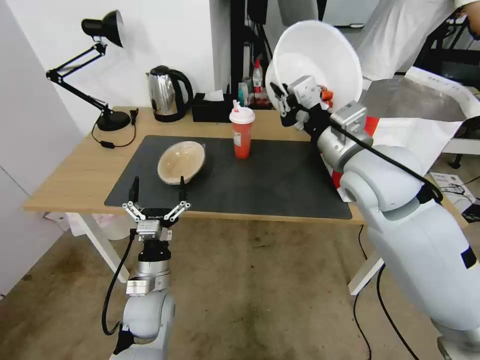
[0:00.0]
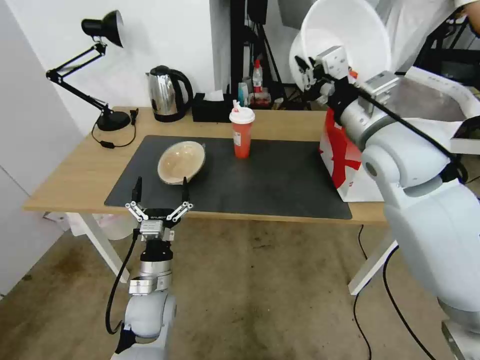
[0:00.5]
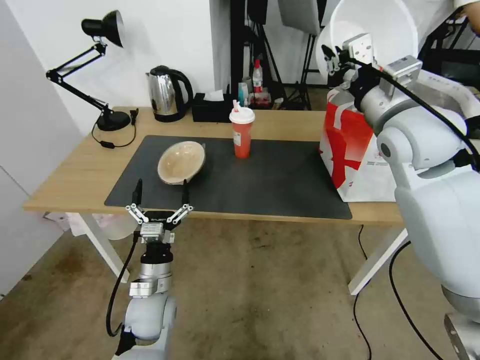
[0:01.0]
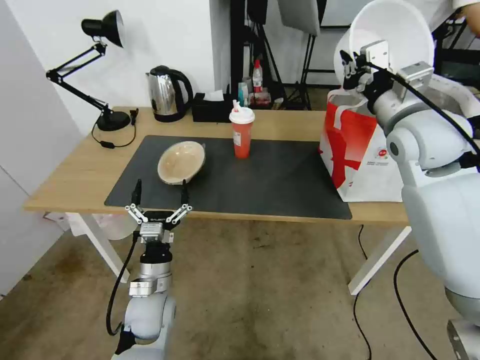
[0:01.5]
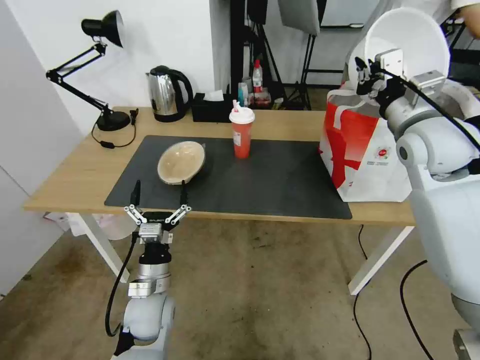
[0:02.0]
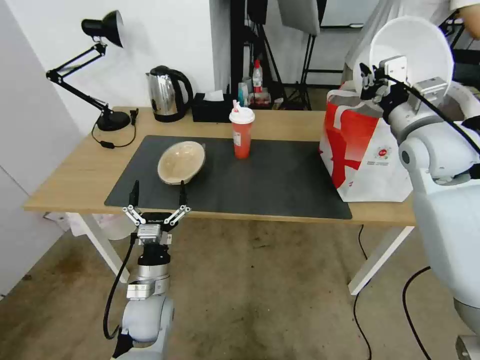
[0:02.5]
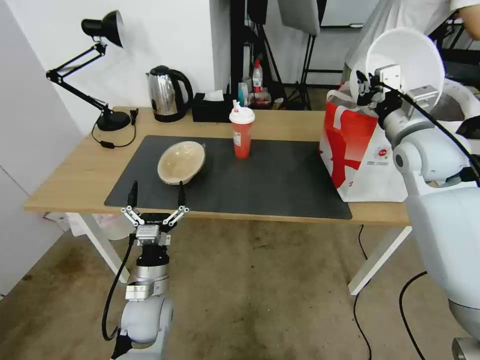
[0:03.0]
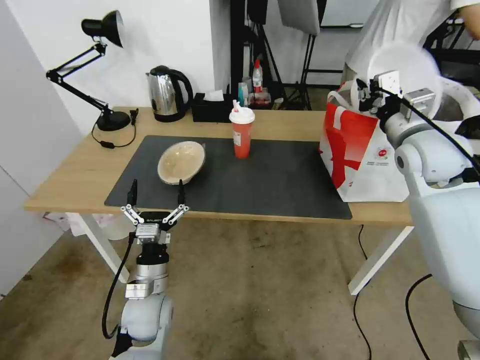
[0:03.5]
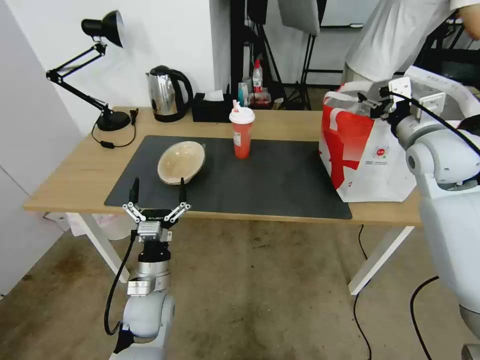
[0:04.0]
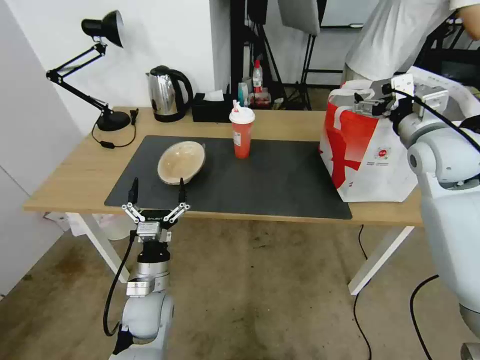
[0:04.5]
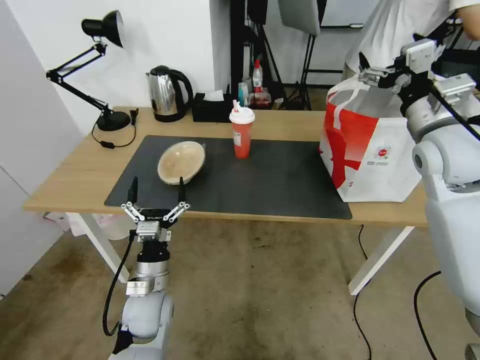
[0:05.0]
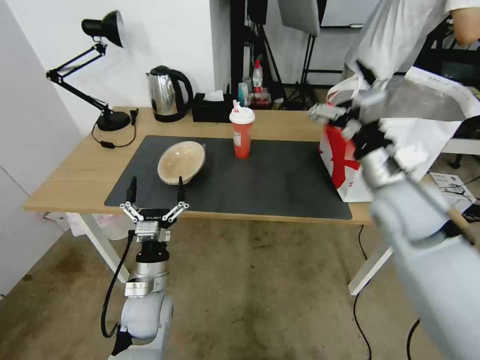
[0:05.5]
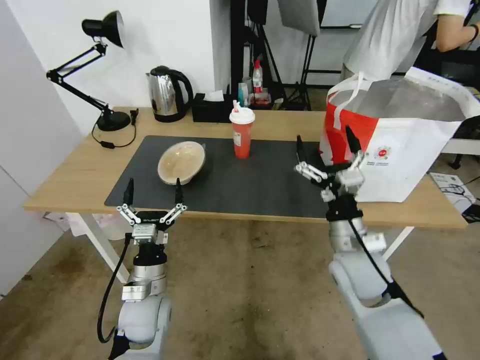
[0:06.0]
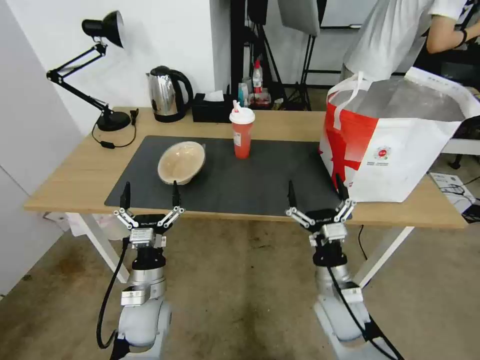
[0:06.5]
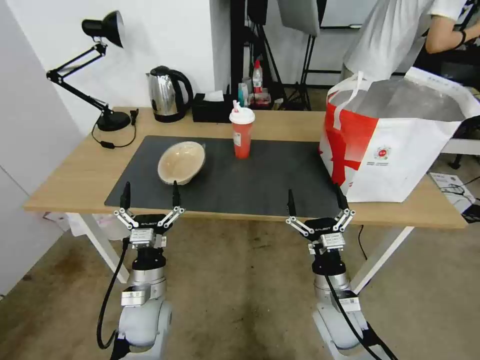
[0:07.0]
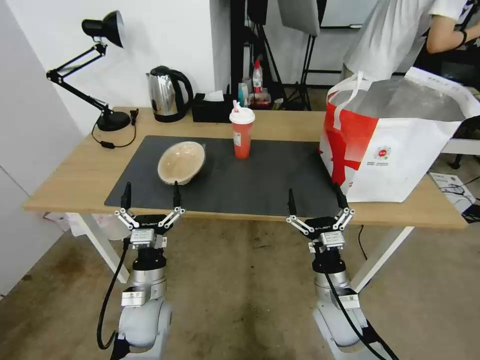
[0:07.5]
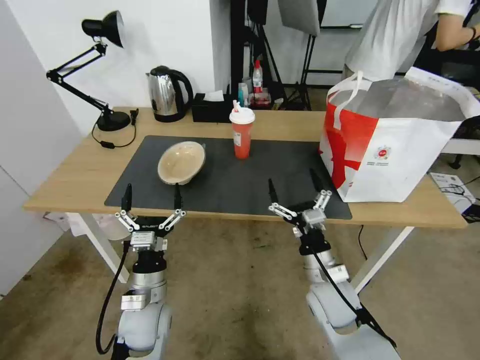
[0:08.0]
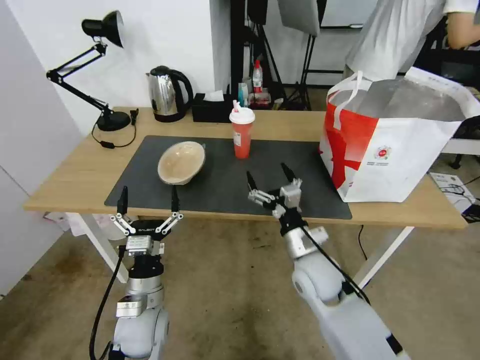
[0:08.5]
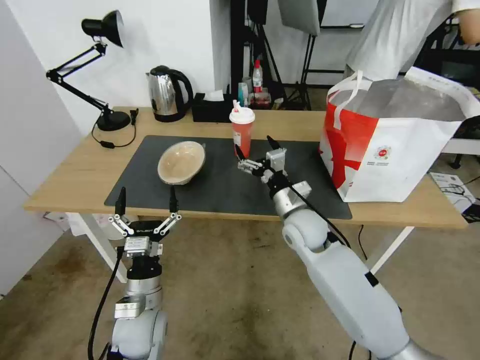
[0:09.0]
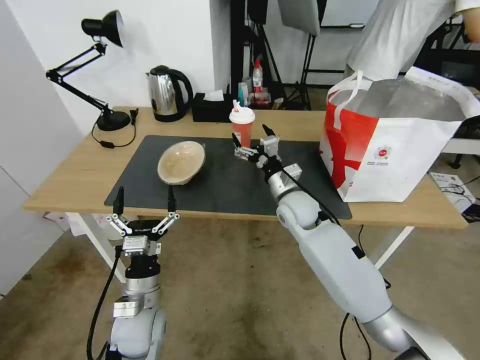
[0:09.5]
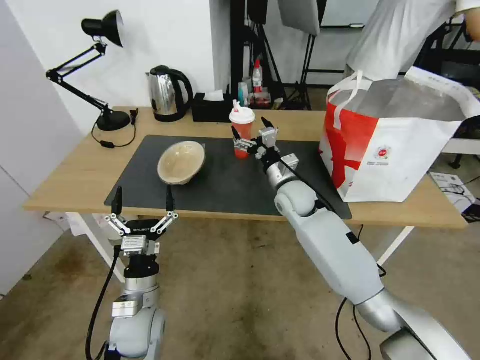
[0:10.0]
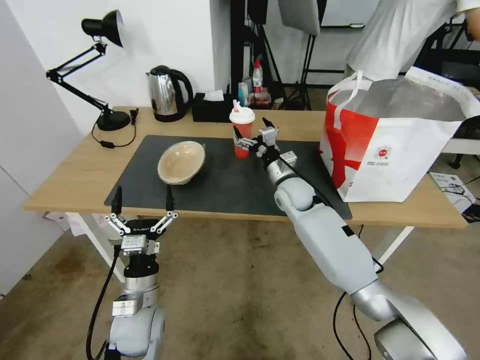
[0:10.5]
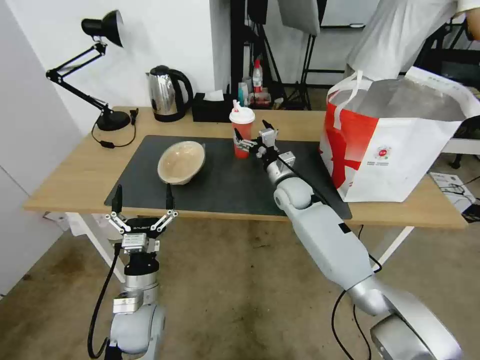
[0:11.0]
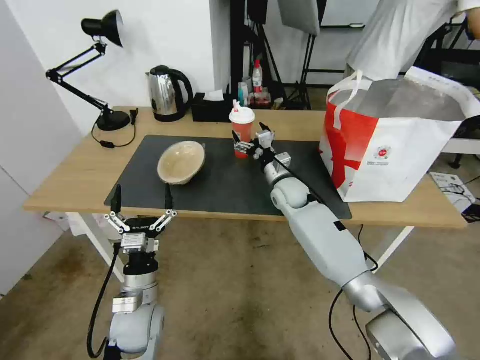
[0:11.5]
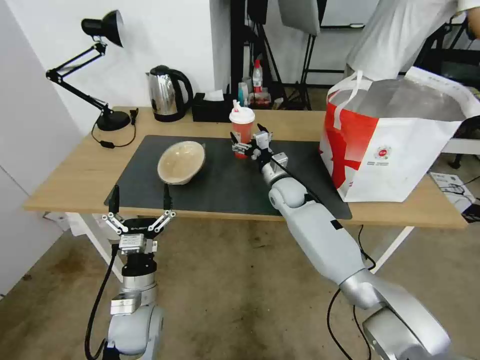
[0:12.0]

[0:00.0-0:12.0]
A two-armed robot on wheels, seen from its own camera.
Task of the whole recording: Pick up the trash from the table and place it into the takeout bag.
0.0 to 2.0 s: The right gripper travels to the right and forward by about 15 cm.
2.0 to 4.0 s: The right gripper opens.
4.0 to 6.0 s: The right gripper is displaced downward, to the left and backward by about 25 cm, and opens up.
6.0 to 8.0 s: The right gripper shifts approximately 10 cm downward.
8.0 to 10.0 s: The right gripper moves forward, approximately 20 cm.
10.0 to 12.0 s: The right gripper shifts by approximately 5 cm.

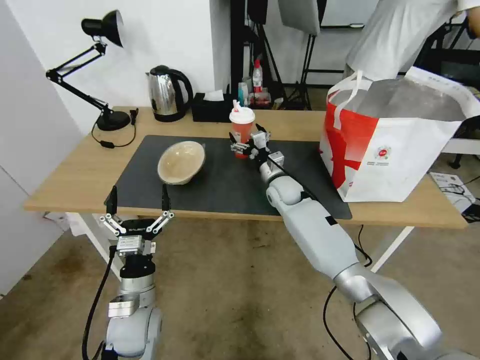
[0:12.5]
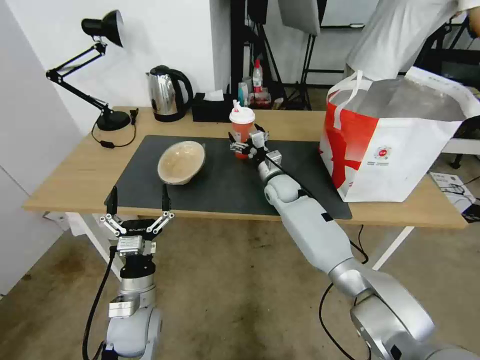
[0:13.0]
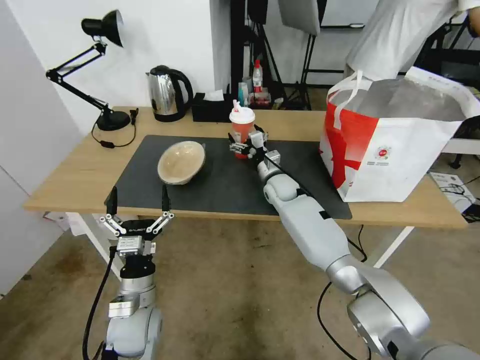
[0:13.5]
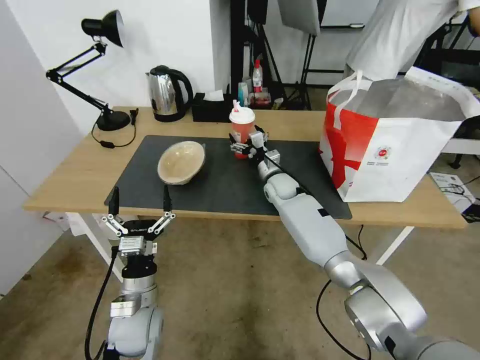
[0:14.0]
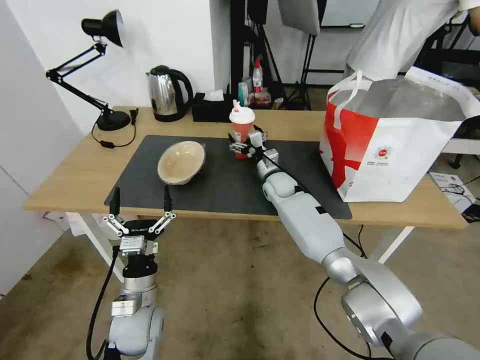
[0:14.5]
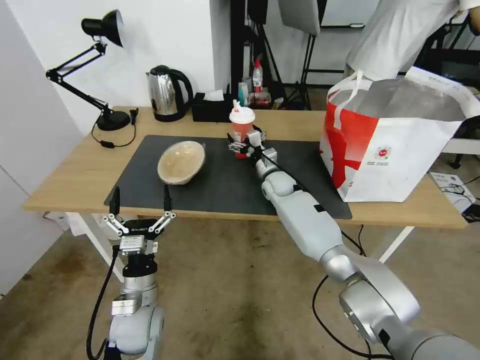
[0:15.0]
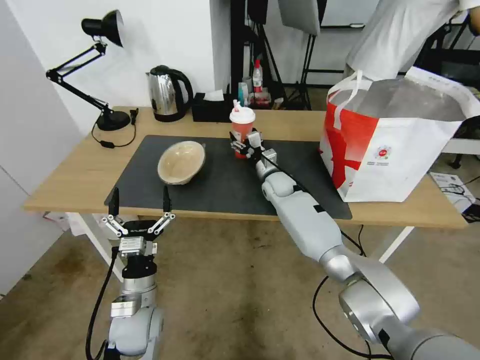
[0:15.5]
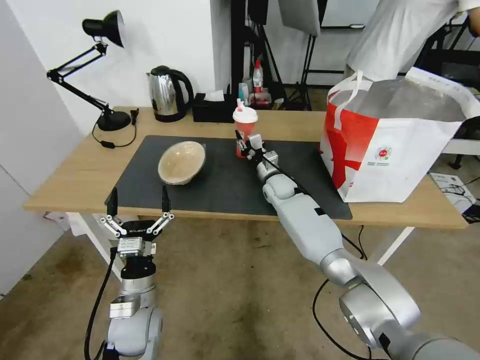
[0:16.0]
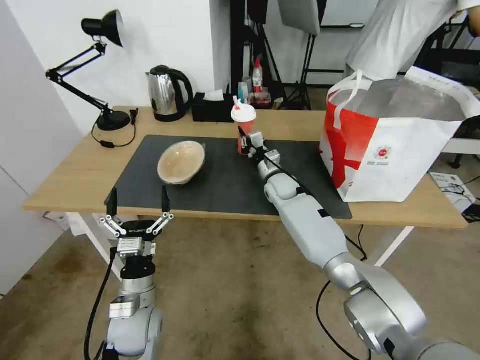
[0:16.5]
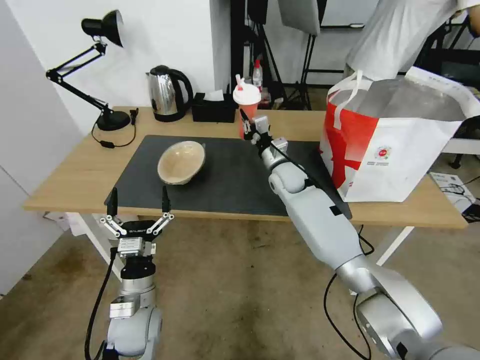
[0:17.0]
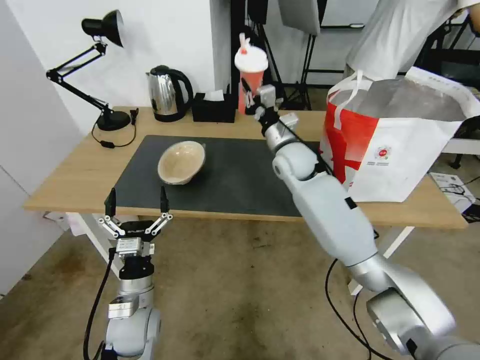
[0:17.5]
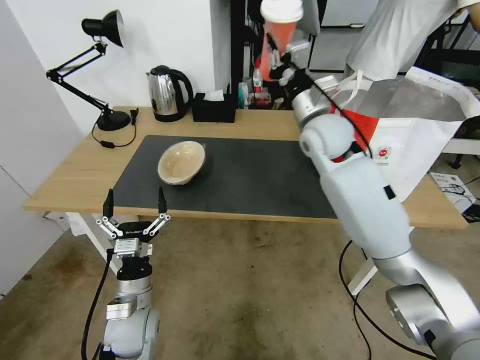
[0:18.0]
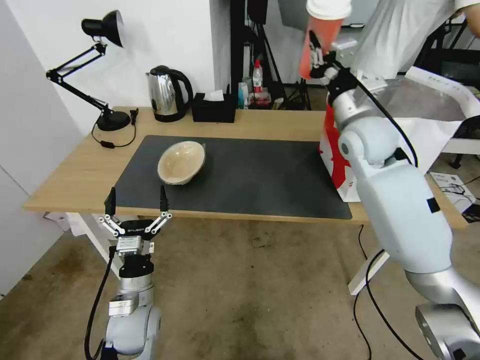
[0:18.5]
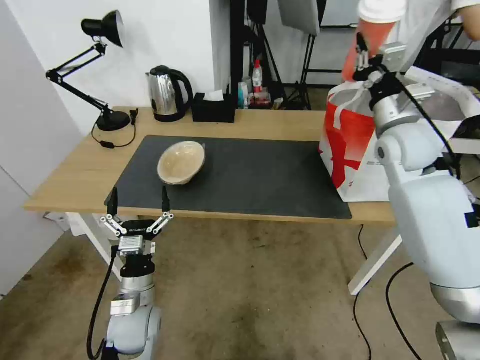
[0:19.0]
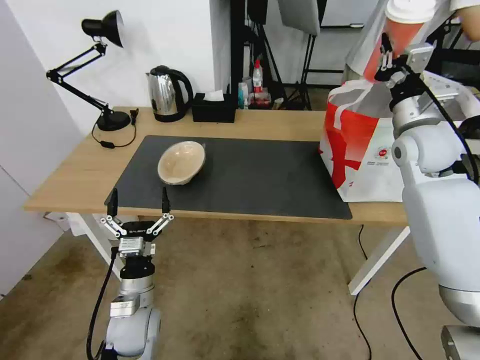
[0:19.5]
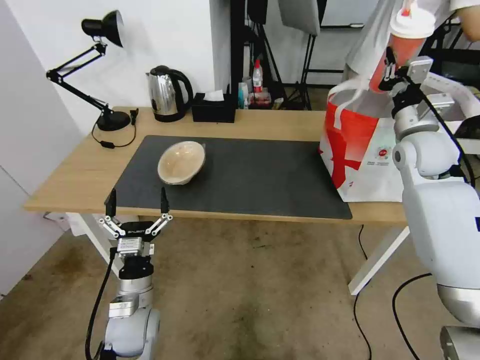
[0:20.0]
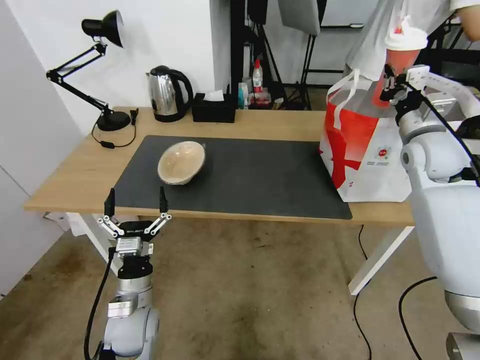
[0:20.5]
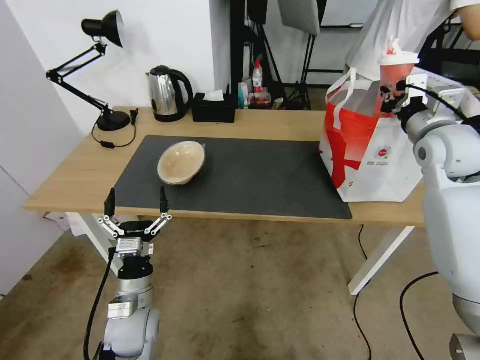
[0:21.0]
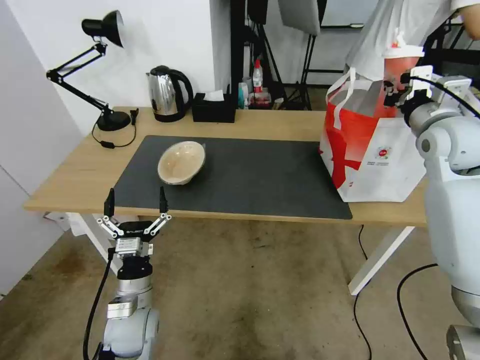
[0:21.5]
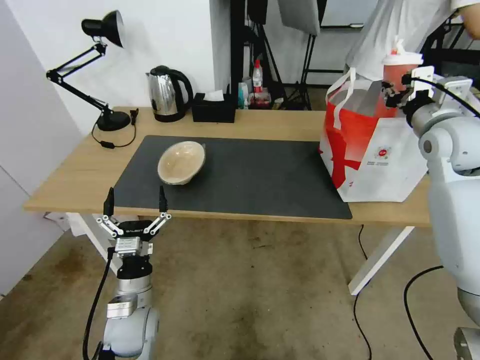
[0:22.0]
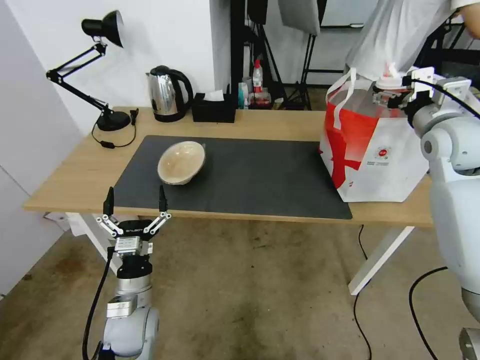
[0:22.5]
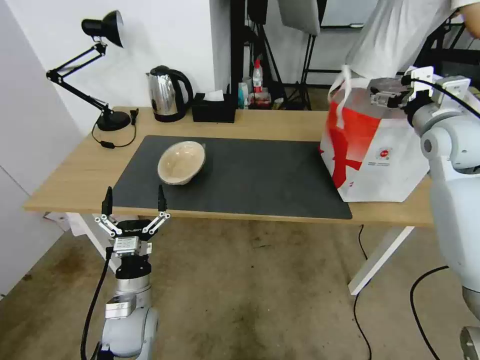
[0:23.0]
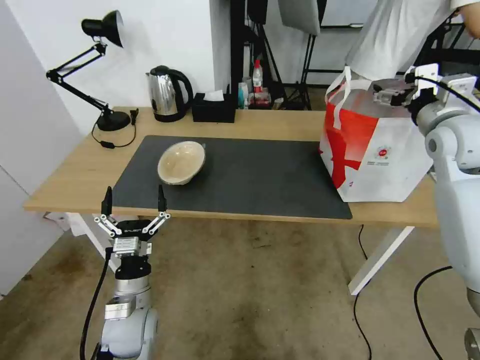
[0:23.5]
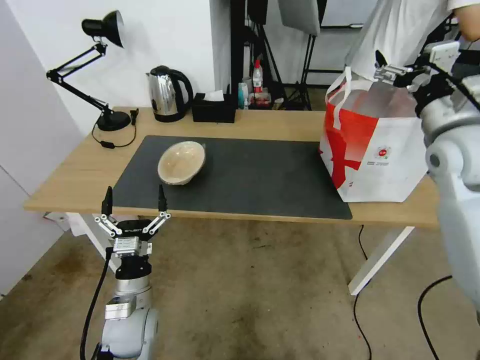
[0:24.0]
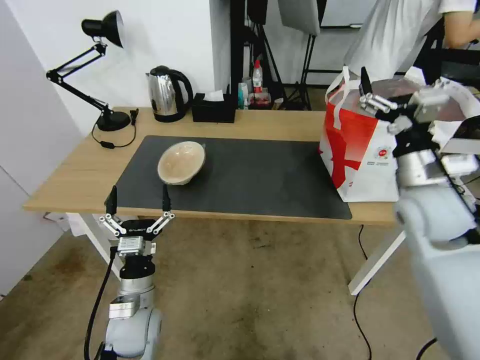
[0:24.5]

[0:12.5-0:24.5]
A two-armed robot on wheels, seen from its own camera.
Task of the whole recording: Pick up the trash from the table and place it into the takeout bag.
12.5 to 14.5 s: The grippers stay close to where they were, moving slightly.
14.5 to 16.5 s: The right gripper closes up.
16.5 to 18.5 s: The right gripper travels upward and to the right by approximately 30 cm.
18.5 to 20.5 s: The right gripper is displaced to the right by some 15 cm.
20.5 to 22.5 s: The right gripper opens up.
22.5 to 24.5 s: The right gripper travels backward, downward and to the left by about 15 cm.

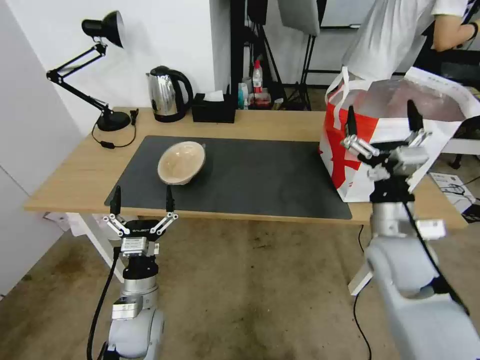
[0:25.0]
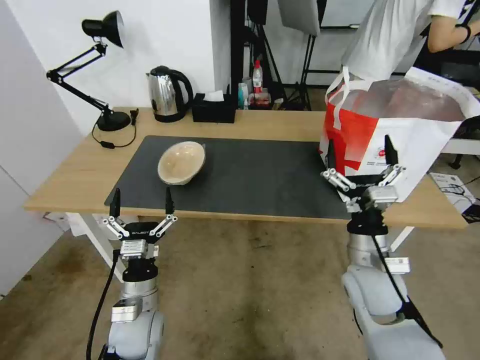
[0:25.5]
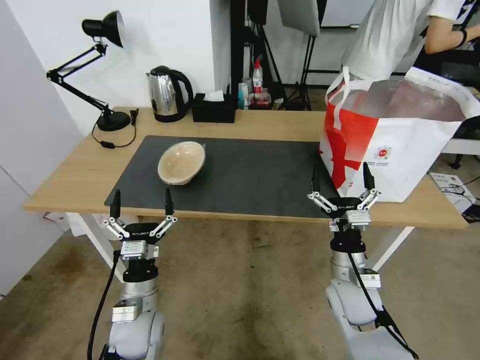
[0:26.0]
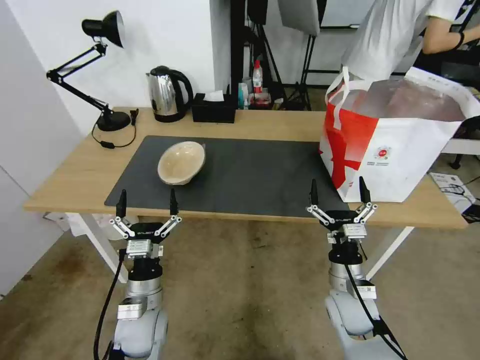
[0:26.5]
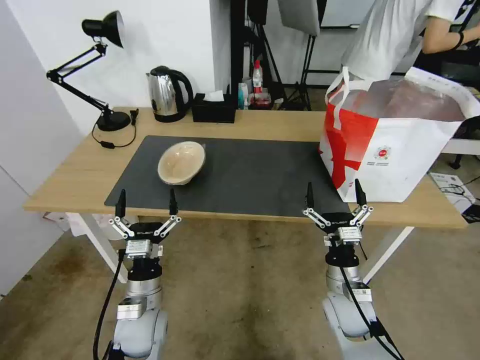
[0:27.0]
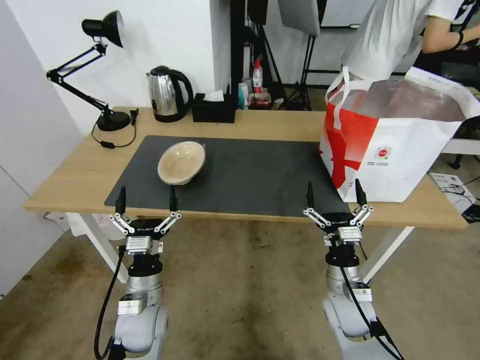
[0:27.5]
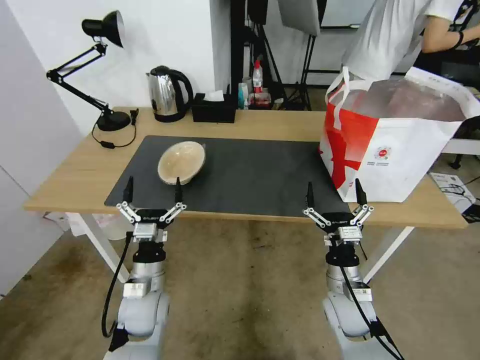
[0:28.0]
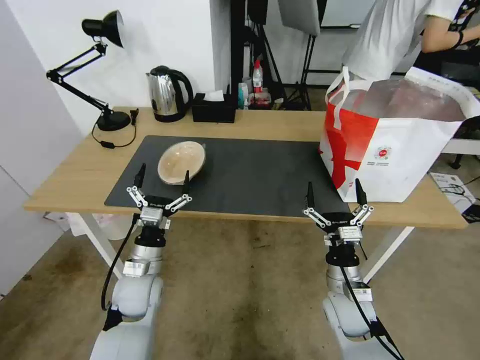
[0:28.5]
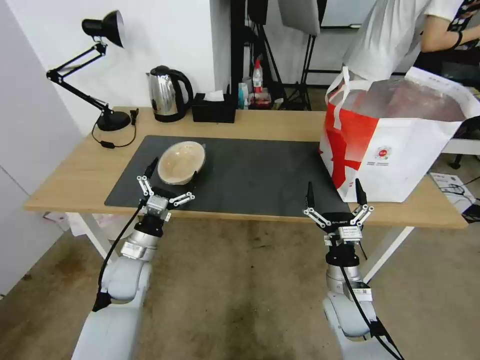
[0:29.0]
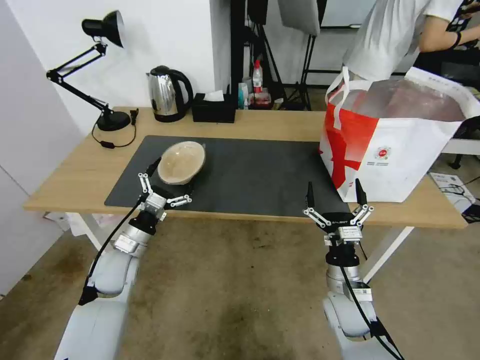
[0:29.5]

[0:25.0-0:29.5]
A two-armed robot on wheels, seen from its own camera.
Task of the whole recording: Pick up the trash from the table and place it into the takeout bag.
25.0 to 27.0 s: The right gripper heads downward, covering approximately 15 cm.
27.0 to 29.5 s: The left gripper goes about 15 cm forward and to the left.
